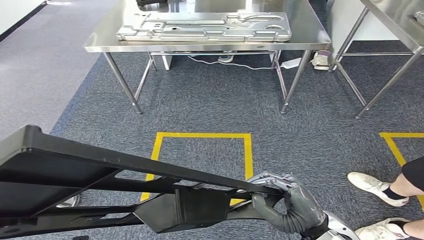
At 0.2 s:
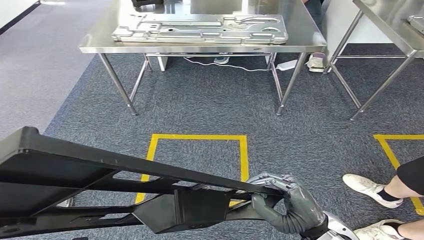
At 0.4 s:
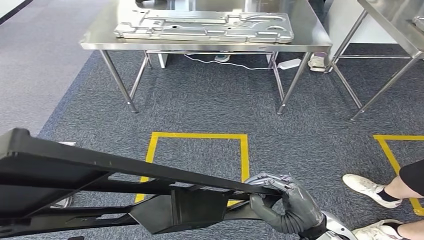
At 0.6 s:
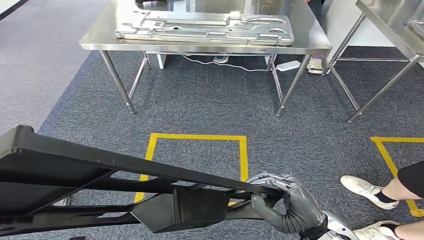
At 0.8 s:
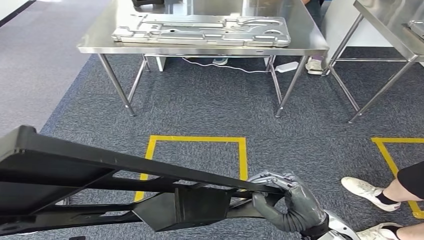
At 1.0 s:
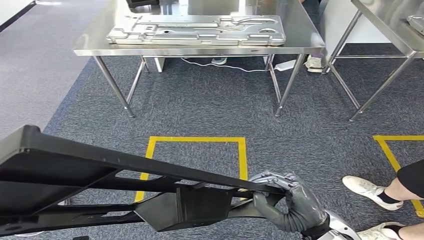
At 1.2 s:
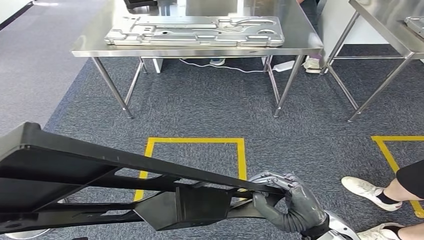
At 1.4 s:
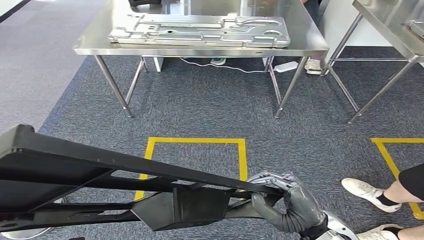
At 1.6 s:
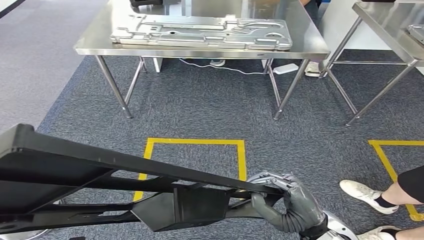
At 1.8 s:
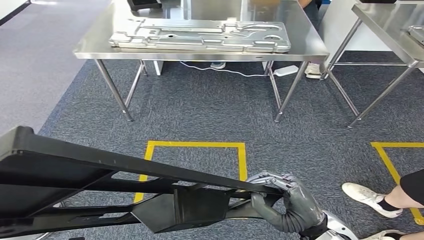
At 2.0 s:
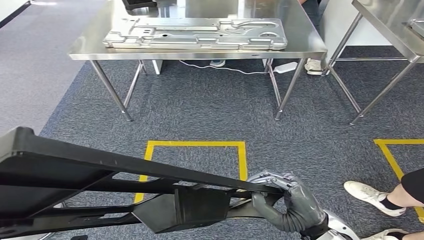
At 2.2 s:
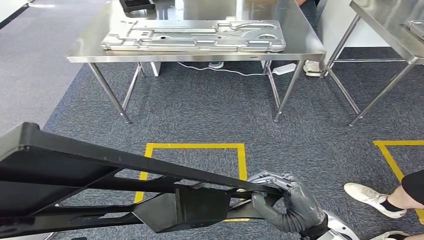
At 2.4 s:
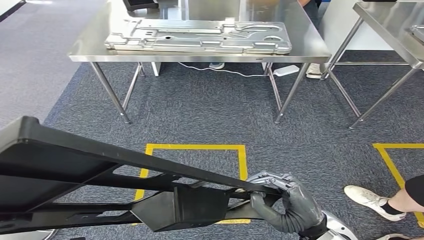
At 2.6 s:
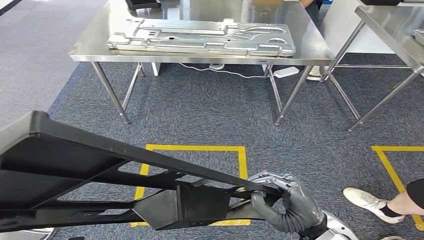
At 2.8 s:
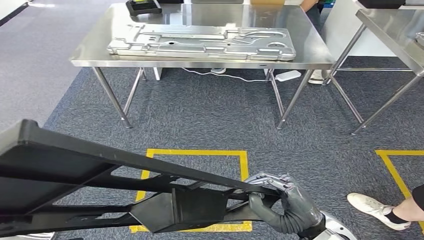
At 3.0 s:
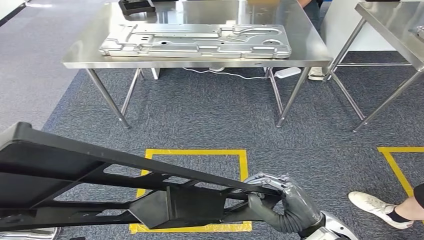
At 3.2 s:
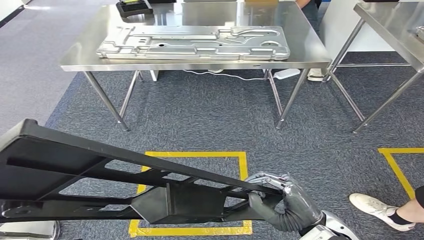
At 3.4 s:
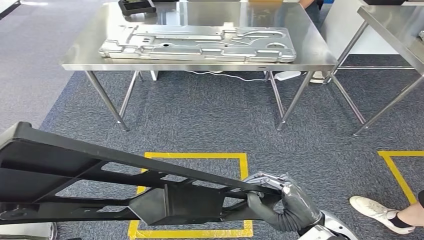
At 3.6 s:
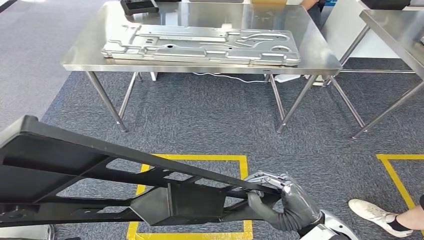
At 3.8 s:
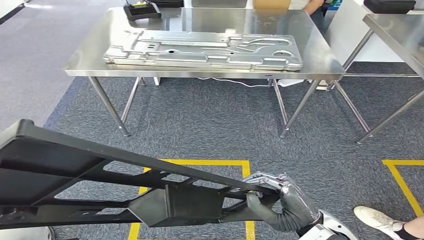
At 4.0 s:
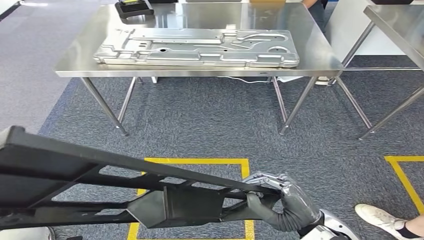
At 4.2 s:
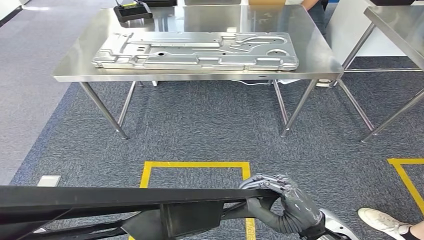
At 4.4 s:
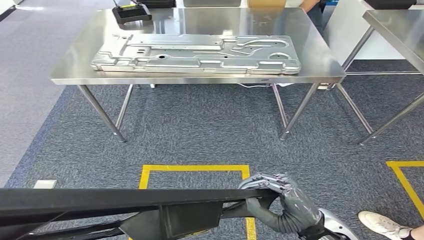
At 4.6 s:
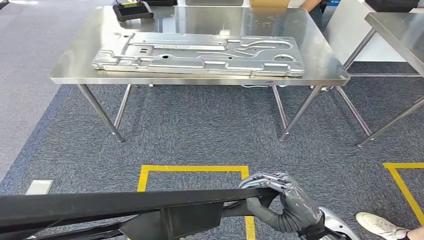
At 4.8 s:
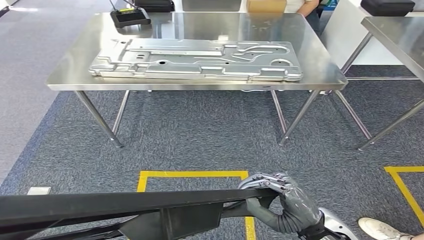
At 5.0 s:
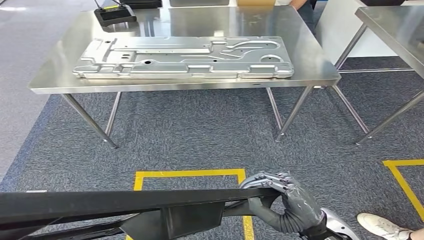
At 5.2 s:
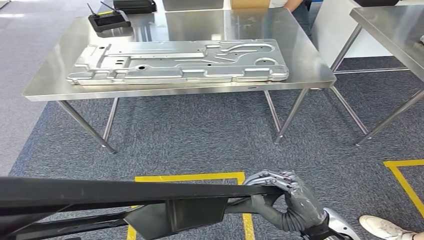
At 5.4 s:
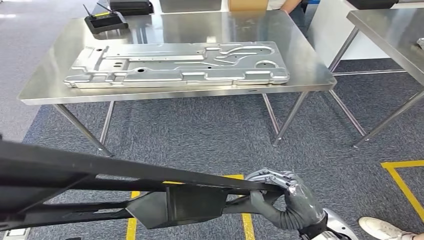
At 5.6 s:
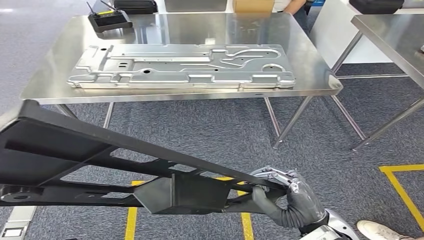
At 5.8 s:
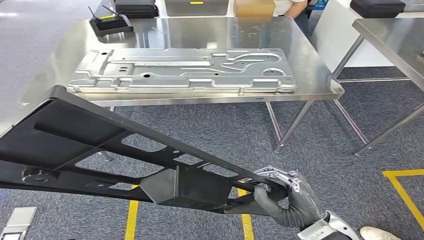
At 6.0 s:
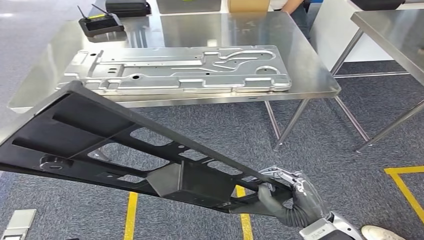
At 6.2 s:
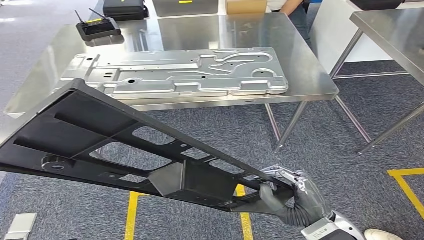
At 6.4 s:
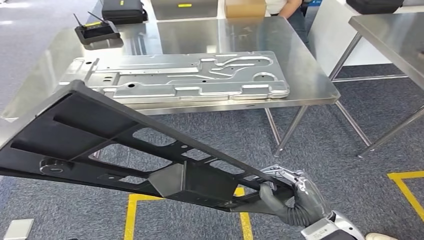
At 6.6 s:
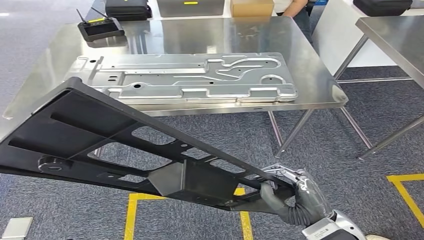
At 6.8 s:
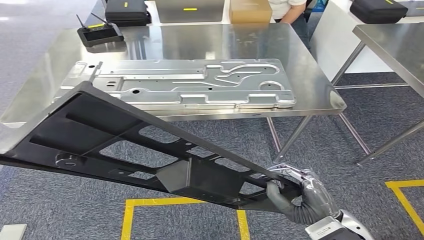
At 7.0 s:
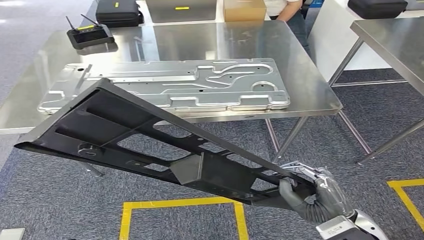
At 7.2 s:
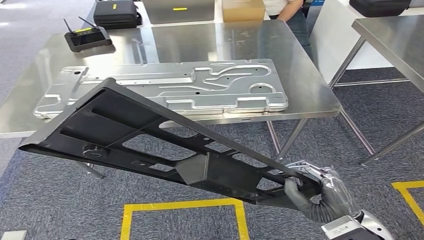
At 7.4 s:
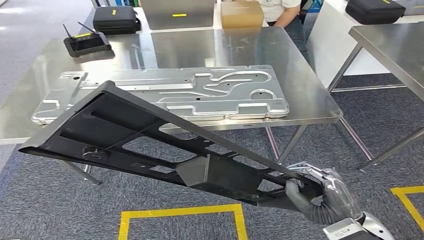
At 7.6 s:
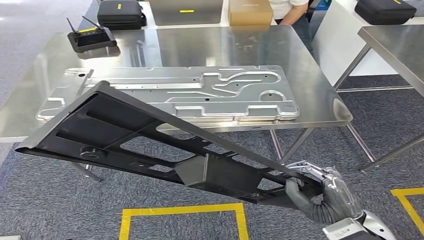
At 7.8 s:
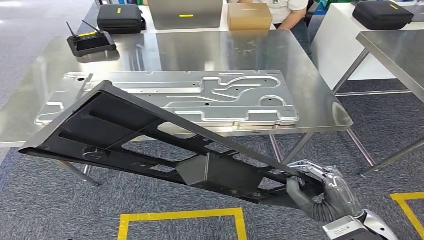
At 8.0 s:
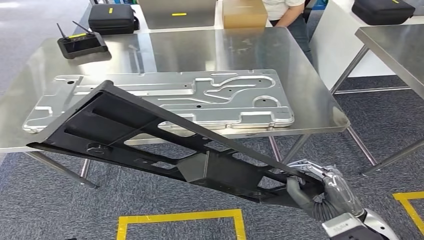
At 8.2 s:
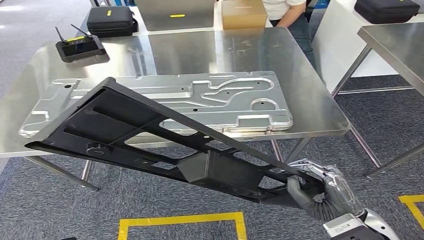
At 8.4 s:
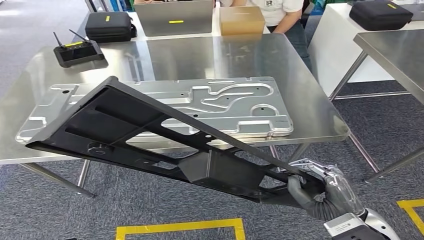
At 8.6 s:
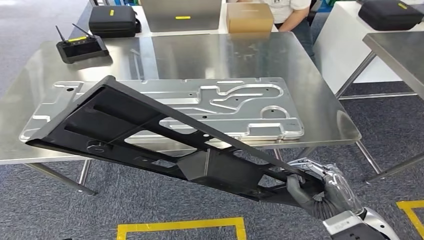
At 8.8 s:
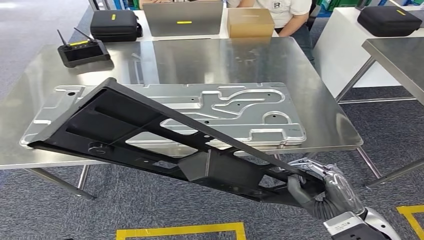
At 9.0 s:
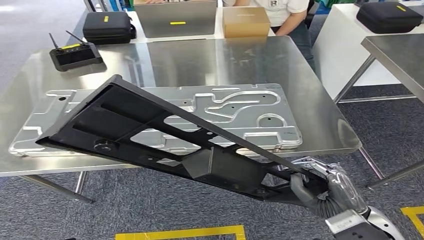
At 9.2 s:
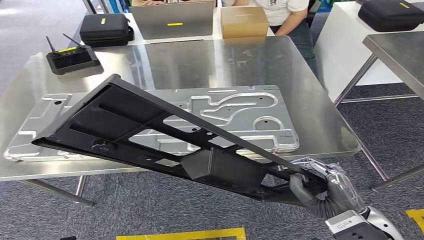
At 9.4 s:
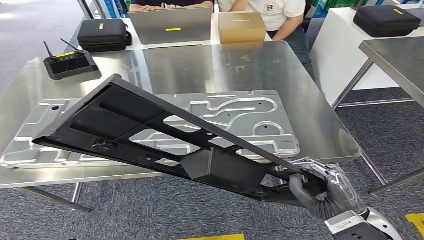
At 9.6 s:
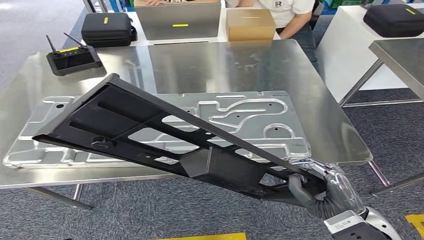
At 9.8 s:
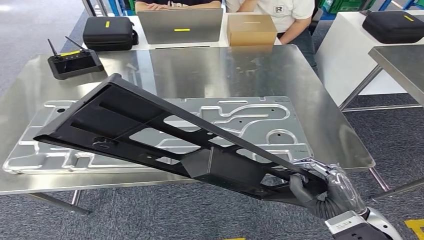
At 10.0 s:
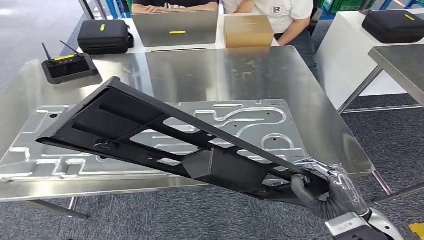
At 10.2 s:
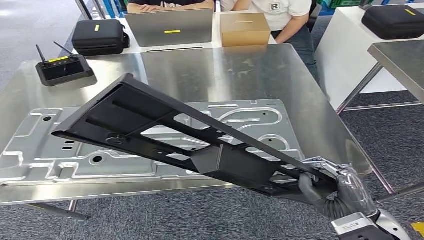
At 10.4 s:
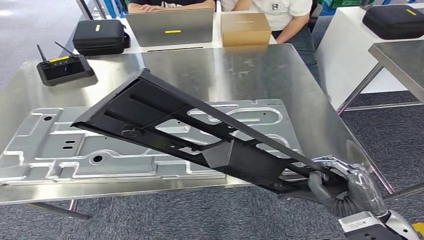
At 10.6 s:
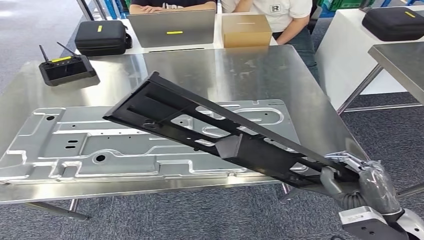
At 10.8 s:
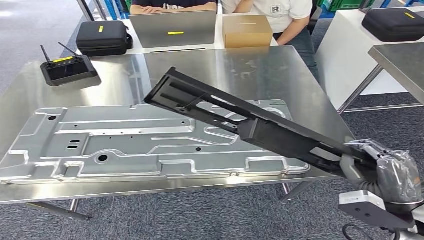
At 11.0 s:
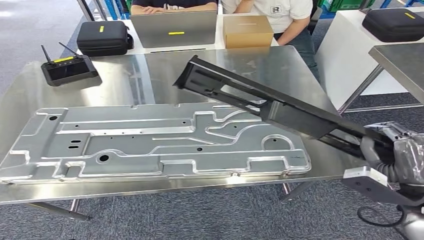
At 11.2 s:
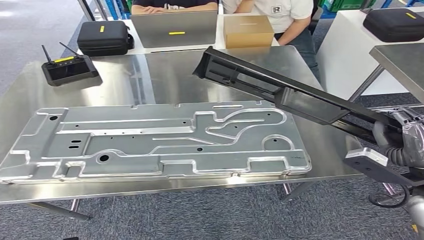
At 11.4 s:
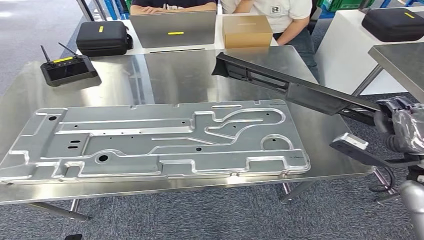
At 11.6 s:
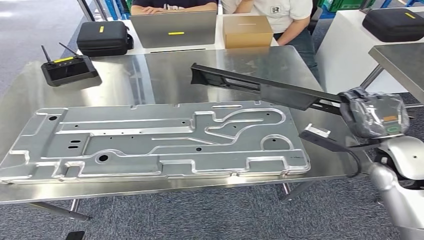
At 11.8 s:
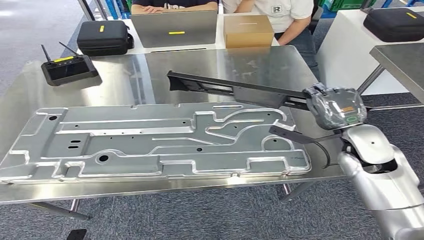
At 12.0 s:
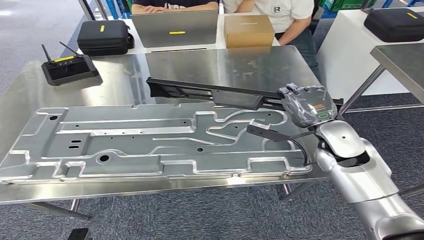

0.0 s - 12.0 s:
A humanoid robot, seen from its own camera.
Step, 0.0 s - 8.6 s: Move the large material to the workbench.

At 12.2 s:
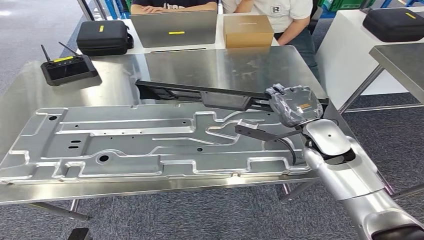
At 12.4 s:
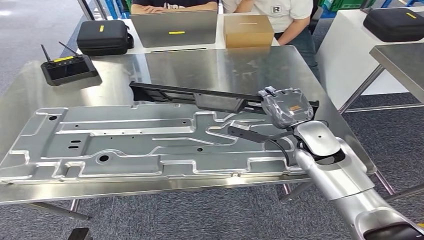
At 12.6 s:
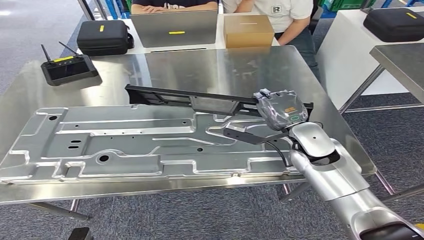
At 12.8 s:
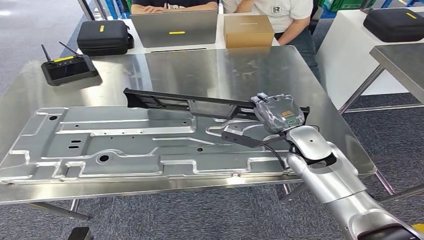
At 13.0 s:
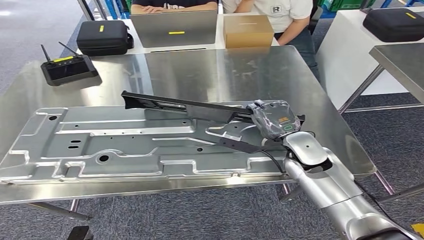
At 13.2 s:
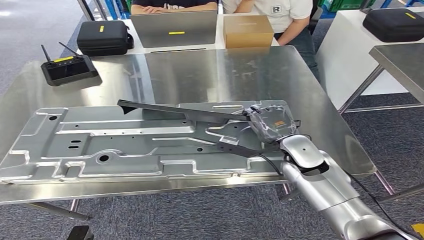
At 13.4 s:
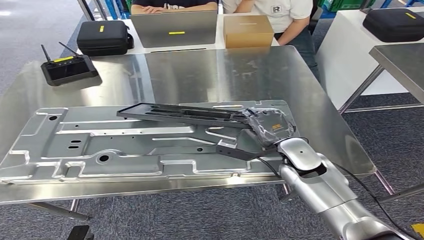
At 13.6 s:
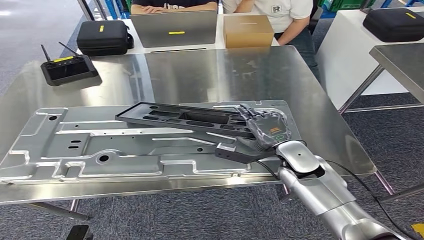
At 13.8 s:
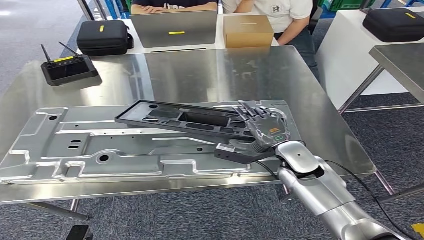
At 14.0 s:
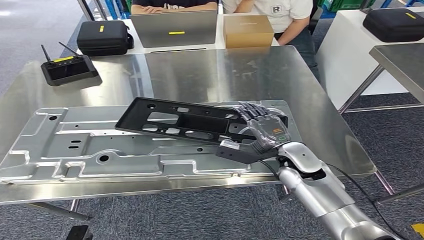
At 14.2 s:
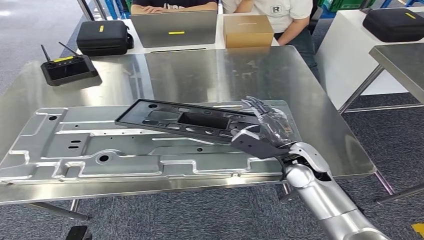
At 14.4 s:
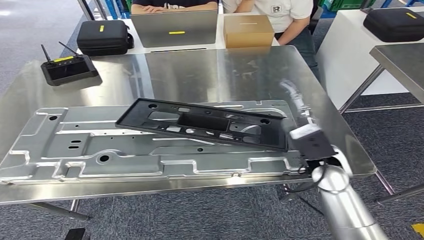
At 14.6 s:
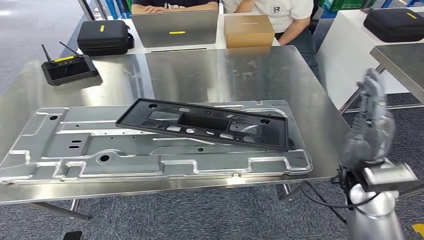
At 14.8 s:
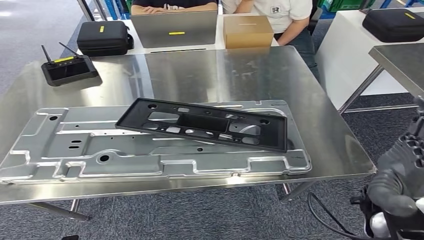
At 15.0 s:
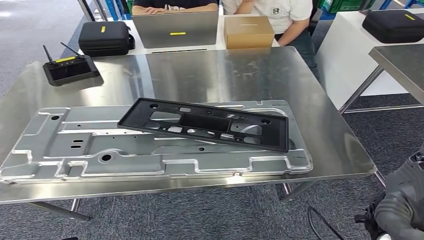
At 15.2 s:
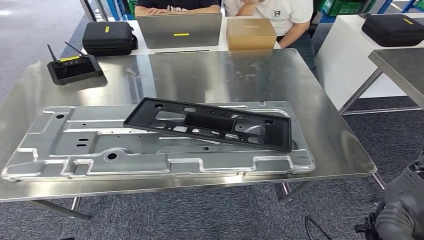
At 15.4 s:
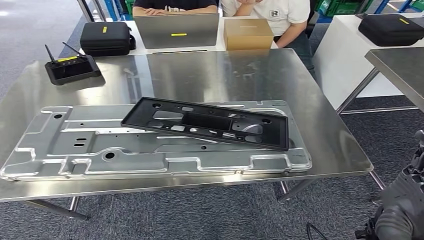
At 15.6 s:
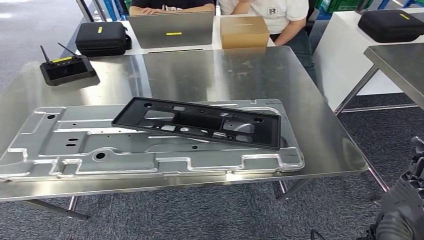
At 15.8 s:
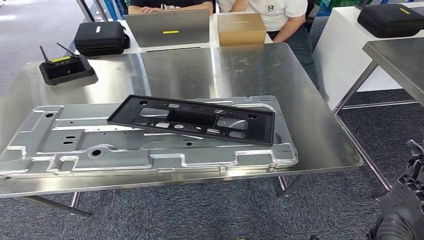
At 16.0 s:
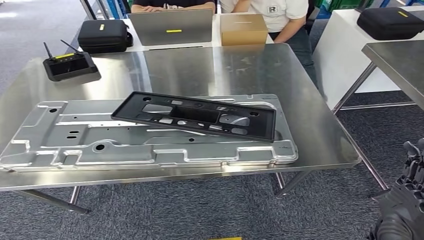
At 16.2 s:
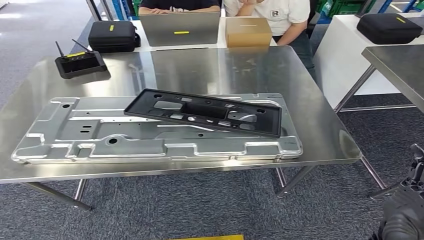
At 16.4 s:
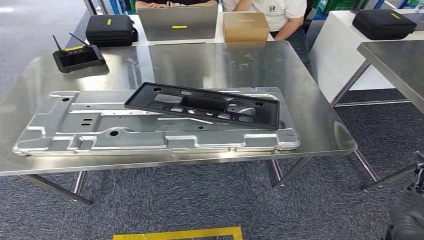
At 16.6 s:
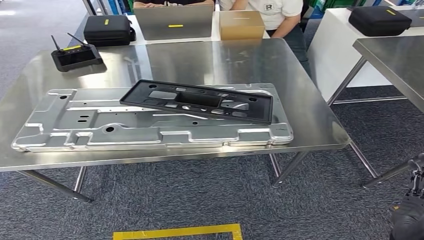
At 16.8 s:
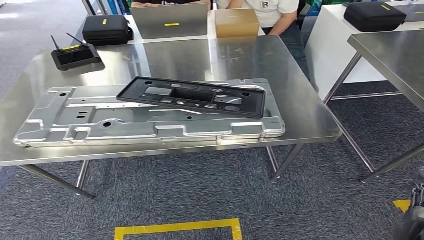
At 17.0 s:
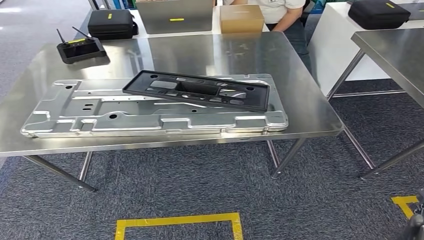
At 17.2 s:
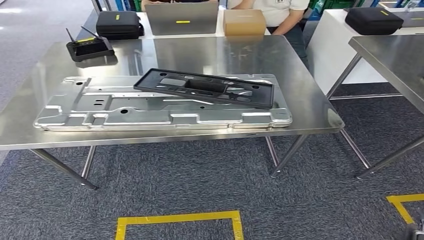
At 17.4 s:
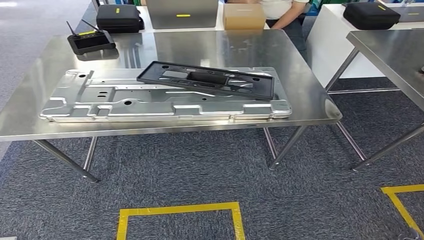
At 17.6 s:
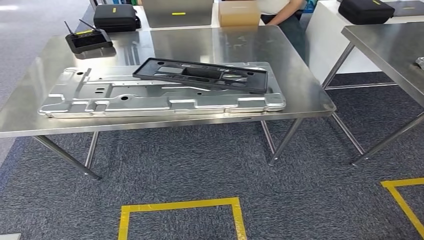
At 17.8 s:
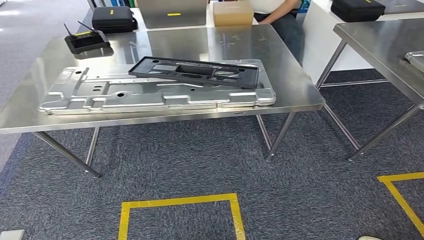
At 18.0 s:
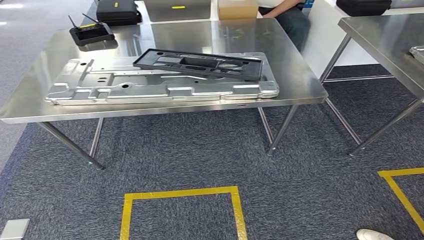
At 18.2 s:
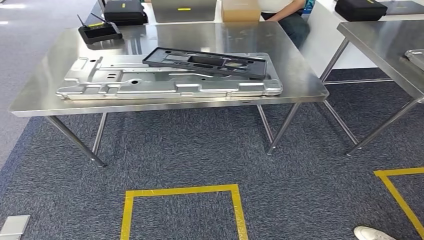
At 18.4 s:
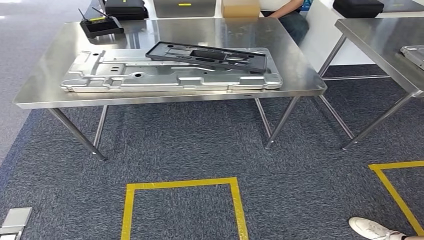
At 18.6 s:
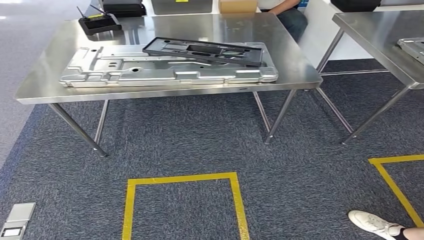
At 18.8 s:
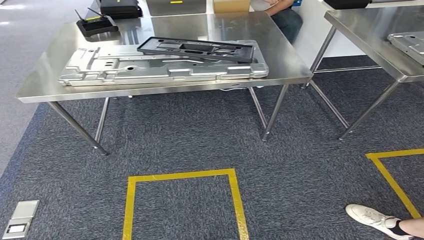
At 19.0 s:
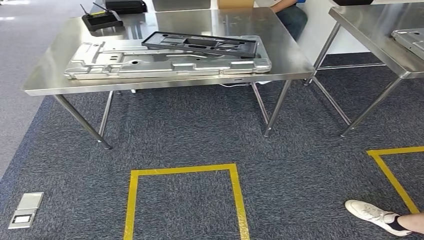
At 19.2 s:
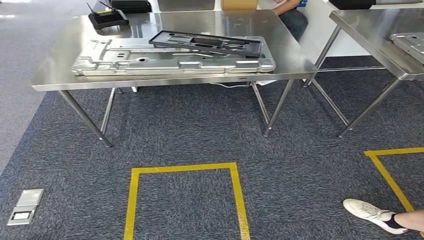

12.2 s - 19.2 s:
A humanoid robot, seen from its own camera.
Step, 12.2 s - 15.6 s: Insert the large material into the corresponding slot on the workbench.
12.2 s - 13.6 s: The right hand is displaced downward by roughly 5 cm.
13.6 s - 15.0 s: The right hand goes approximately 20 cm backward and upward.
